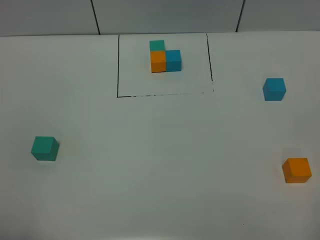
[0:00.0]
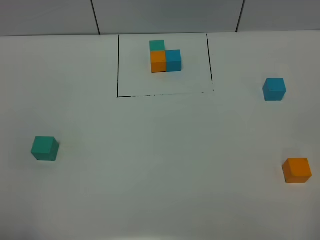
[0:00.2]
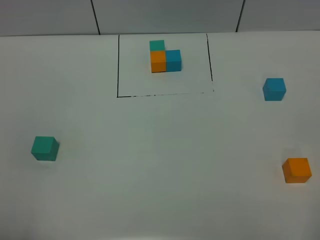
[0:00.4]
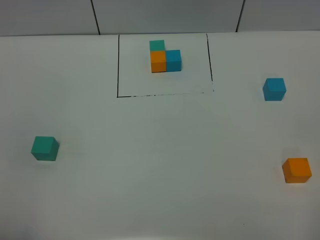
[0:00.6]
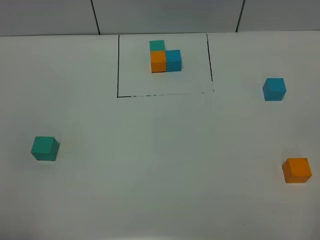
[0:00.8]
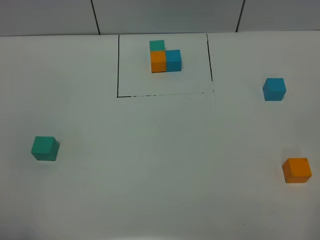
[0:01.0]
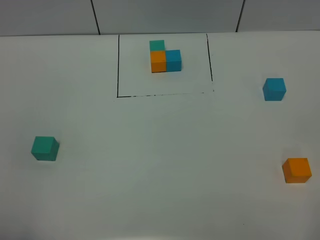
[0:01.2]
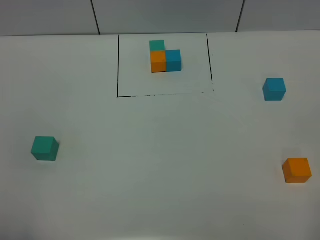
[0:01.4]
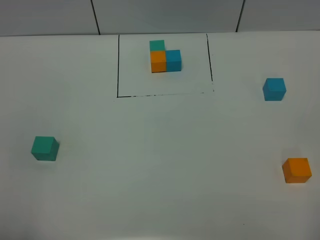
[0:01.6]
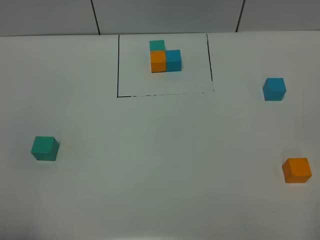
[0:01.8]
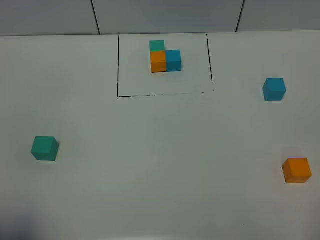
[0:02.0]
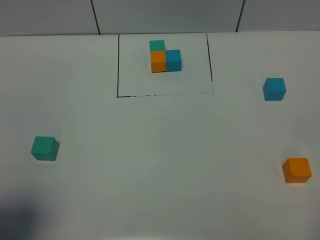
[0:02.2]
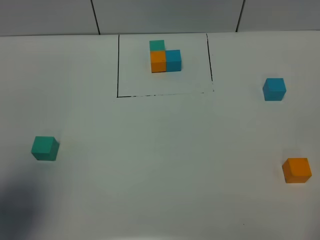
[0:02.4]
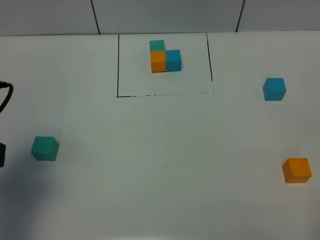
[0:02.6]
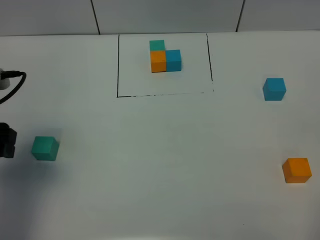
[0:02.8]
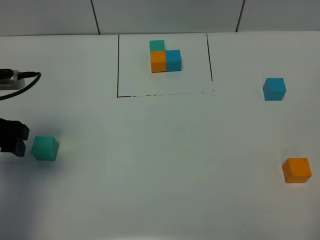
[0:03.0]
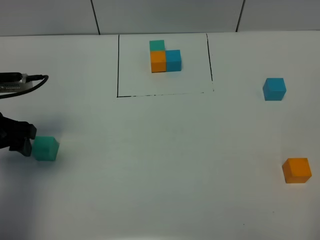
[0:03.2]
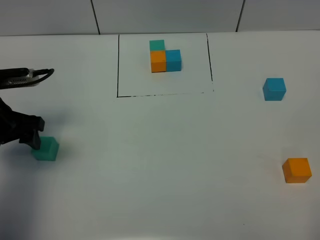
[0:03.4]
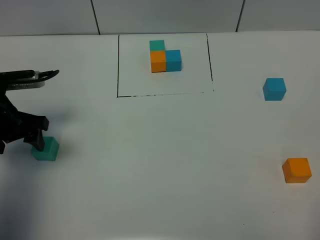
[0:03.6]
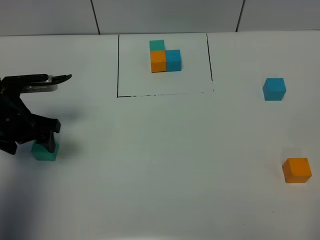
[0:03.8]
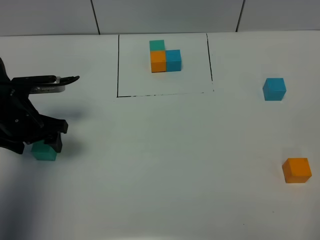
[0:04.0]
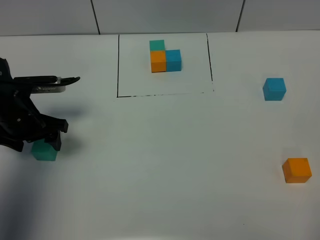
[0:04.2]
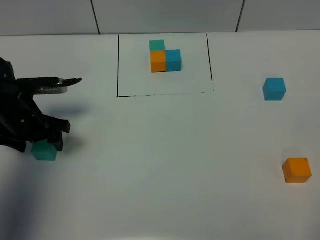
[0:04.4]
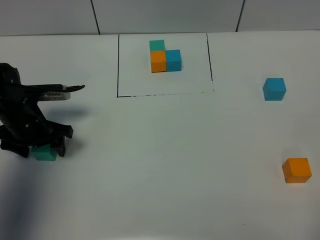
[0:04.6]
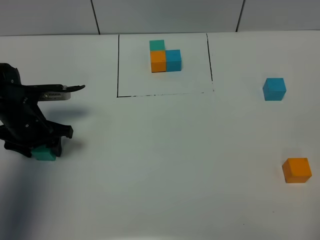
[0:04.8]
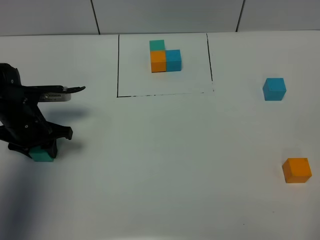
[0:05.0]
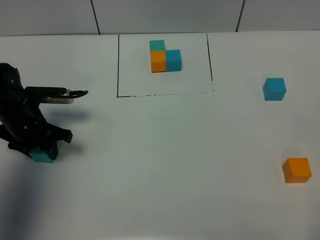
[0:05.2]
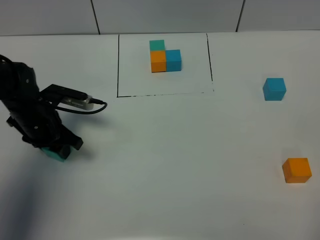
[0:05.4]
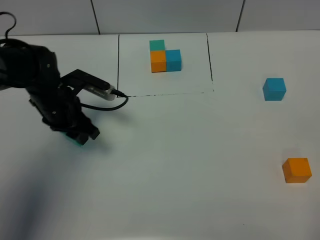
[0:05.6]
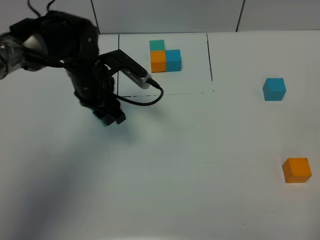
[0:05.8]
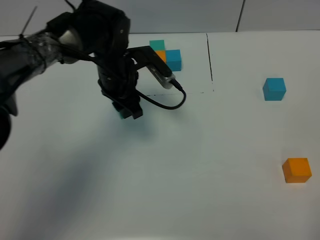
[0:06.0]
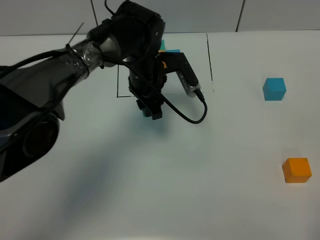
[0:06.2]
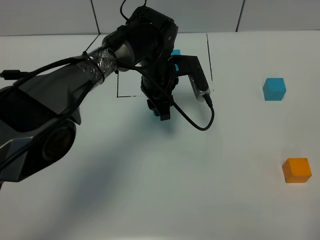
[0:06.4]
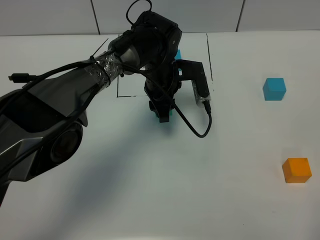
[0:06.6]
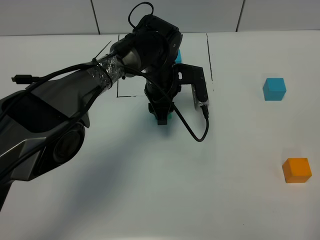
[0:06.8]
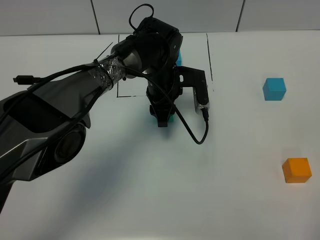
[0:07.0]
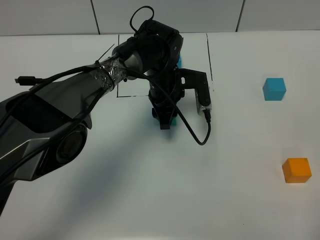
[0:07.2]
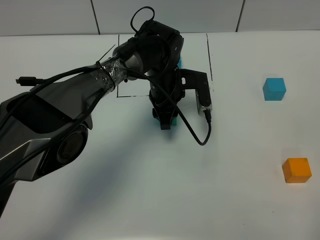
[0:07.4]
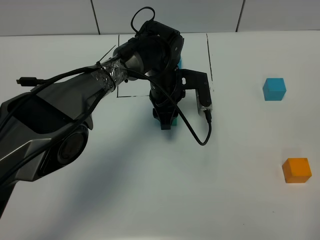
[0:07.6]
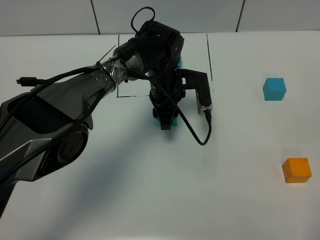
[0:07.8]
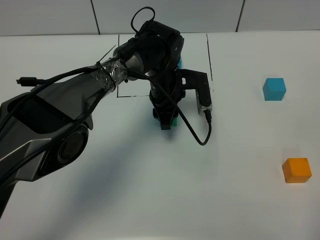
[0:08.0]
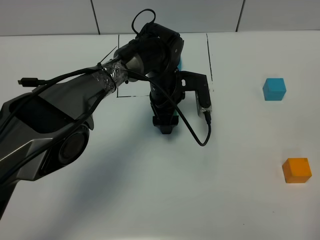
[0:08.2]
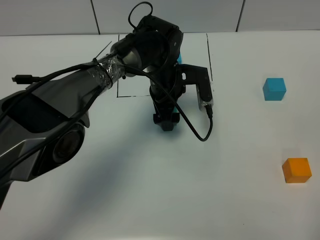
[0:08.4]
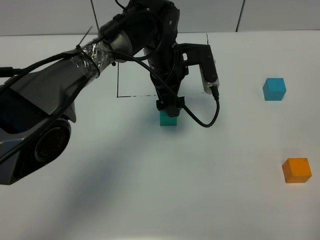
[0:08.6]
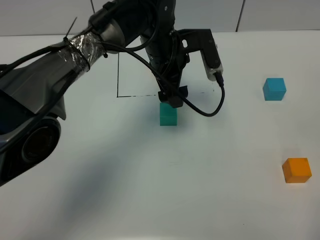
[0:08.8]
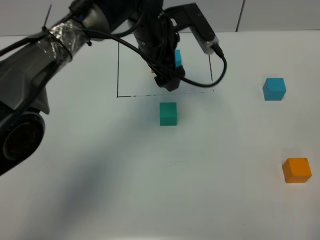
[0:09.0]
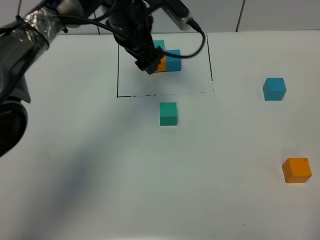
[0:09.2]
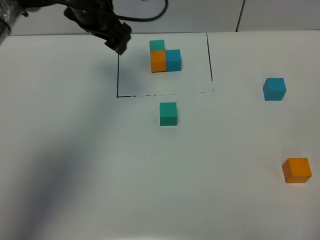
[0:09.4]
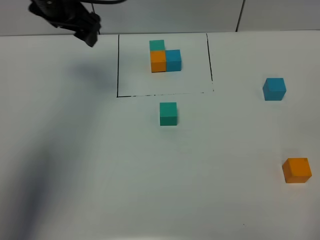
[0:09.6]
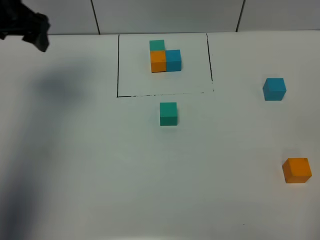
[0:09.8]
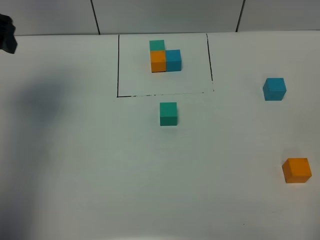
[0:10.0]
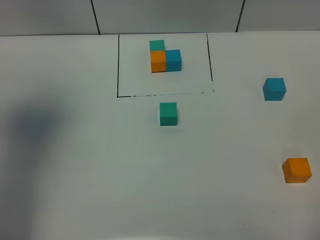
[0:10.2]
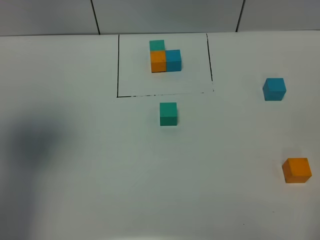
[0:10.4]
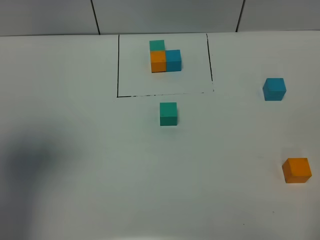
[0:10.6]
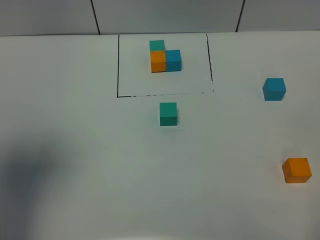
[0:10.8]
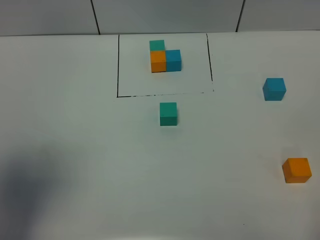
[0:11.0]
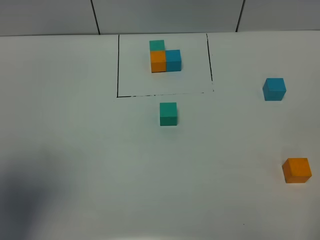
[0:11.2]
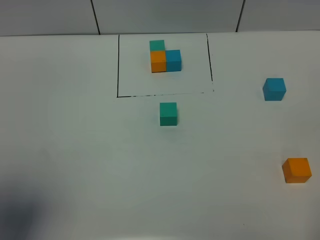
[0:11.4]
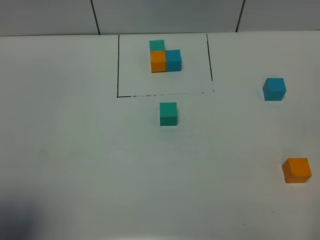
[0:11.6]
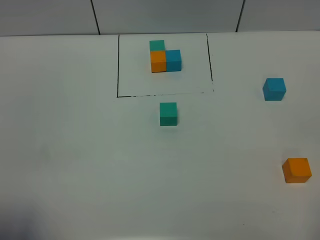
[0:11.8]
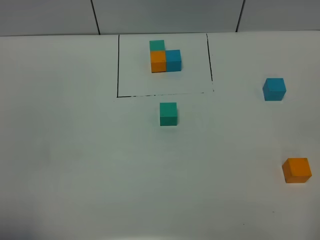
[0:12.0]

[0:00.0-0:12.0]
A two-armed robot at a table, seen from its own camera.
Task of the whole recording: According to the building block template in front, assemble the scattered blocks together.
Step, 0:00.0 to 0:08.0: Put the green build block in the center of the table.
0:00.0 to 0:01.6: Neither gripper changes place.
0:01.6 to 0:03.0: The left gripper is displaced forward by approximately 25 cm.
0:03.0 to 0:04.4: The left gripper goes approximately 10 cm downward and forward.
0:04.4 to 0:06.0: The left gripper moves to the right, some 20 cm, and closes.
0:06.0 to 0:07.6: The left gripper shifts some 10 cm to the right and downward.
0:07.6 to 0:09.0: The left gripper moves upward, roughly 15 cm, and opens.
0:09.0 to 0:10.4: The left gripper travels to the left, backward and upward by some 35 cm.
0:10.4 to 0:12.0: The left gripper moves backward, some 20 cm.

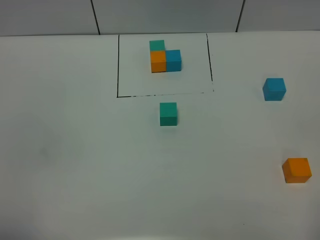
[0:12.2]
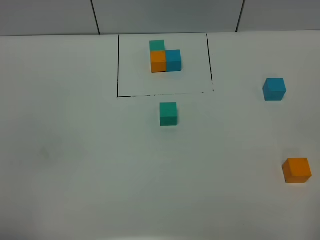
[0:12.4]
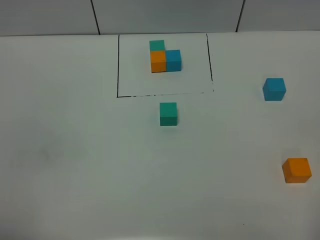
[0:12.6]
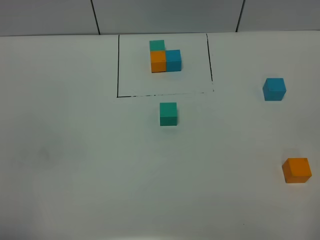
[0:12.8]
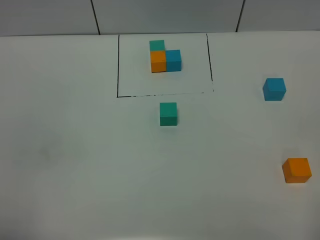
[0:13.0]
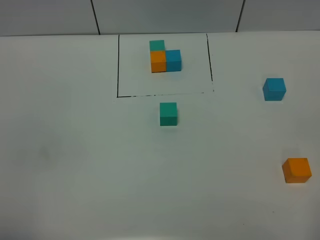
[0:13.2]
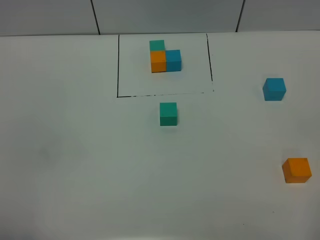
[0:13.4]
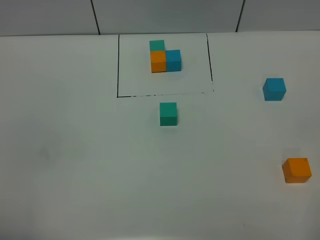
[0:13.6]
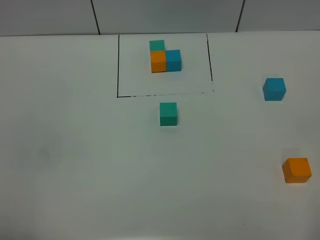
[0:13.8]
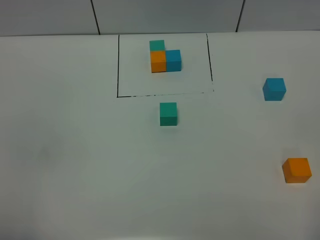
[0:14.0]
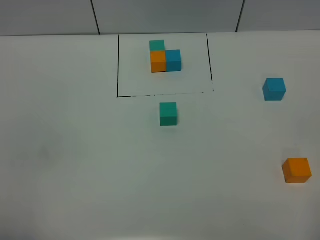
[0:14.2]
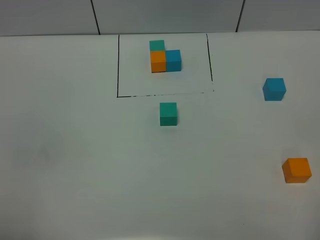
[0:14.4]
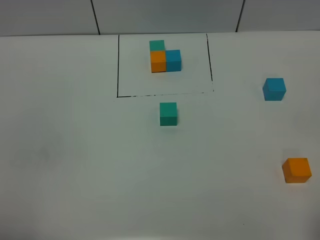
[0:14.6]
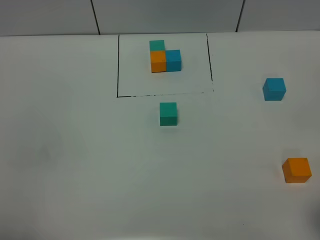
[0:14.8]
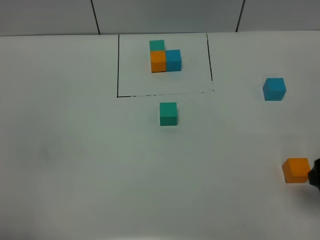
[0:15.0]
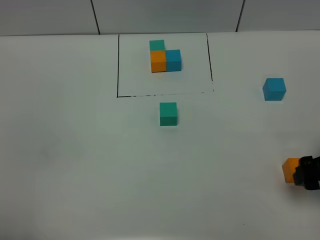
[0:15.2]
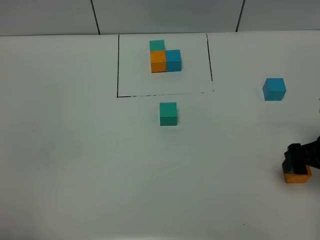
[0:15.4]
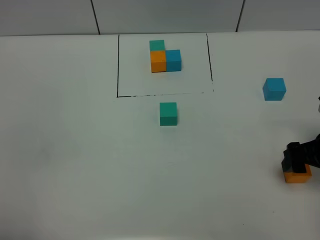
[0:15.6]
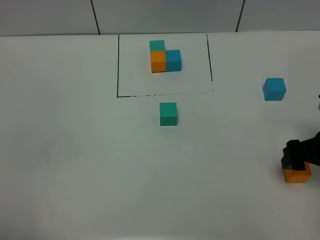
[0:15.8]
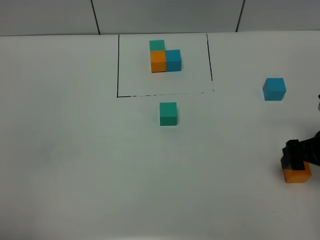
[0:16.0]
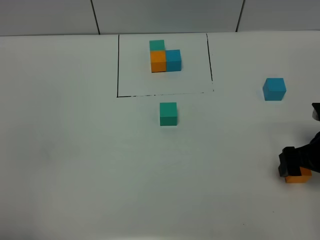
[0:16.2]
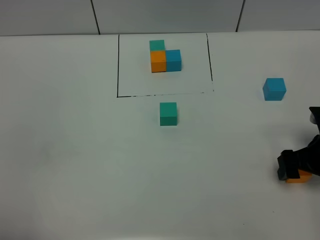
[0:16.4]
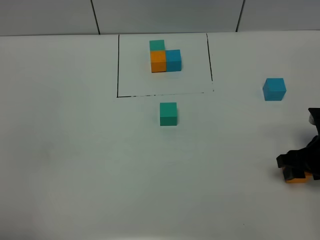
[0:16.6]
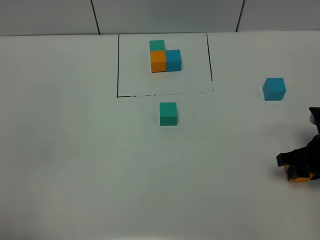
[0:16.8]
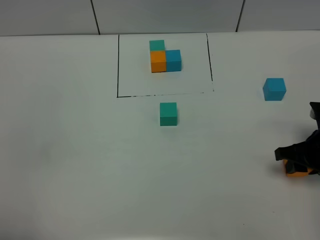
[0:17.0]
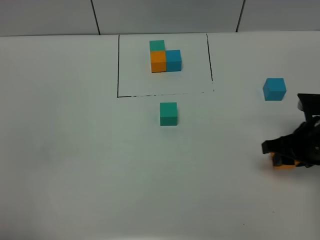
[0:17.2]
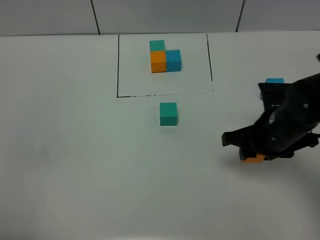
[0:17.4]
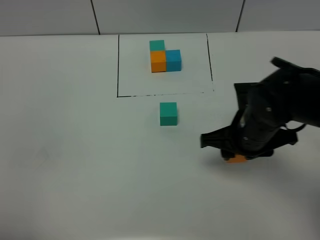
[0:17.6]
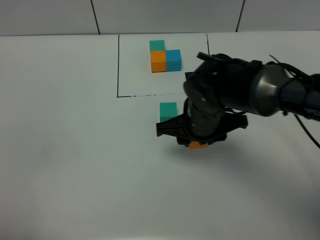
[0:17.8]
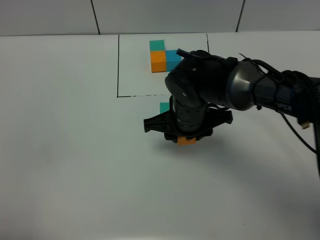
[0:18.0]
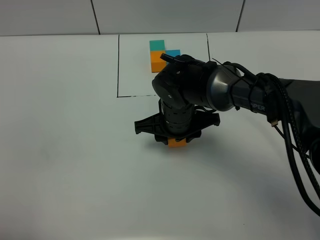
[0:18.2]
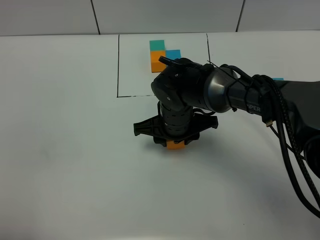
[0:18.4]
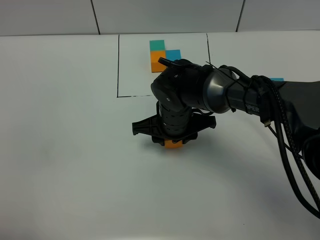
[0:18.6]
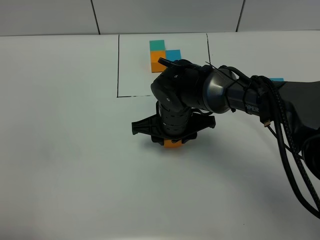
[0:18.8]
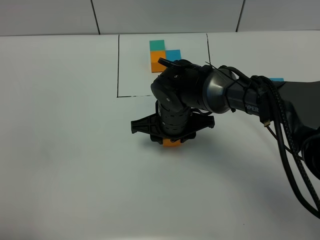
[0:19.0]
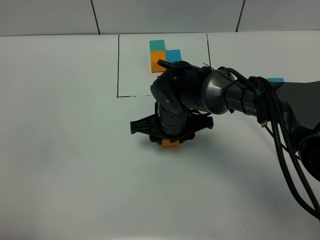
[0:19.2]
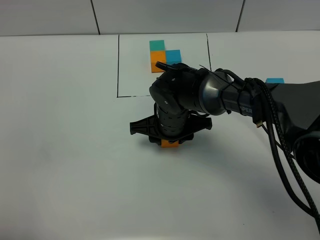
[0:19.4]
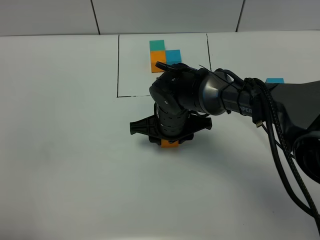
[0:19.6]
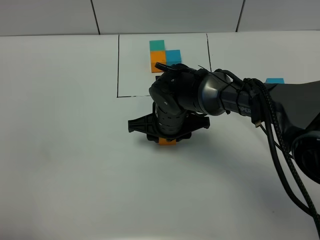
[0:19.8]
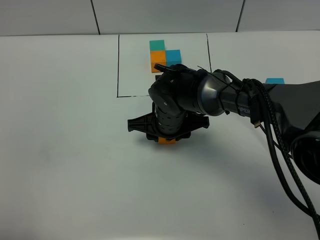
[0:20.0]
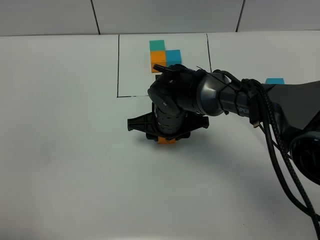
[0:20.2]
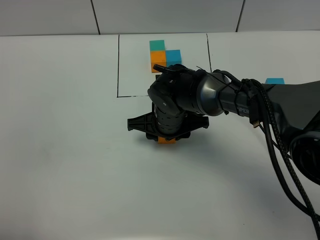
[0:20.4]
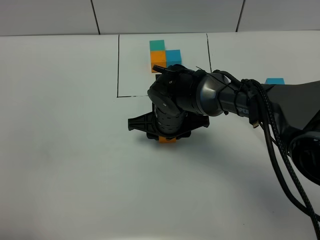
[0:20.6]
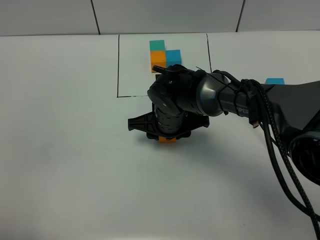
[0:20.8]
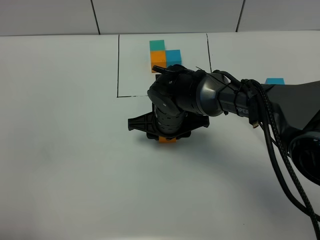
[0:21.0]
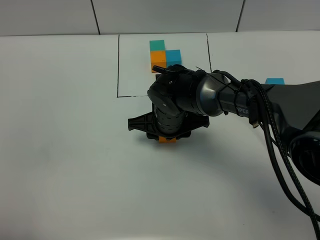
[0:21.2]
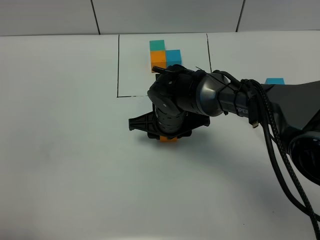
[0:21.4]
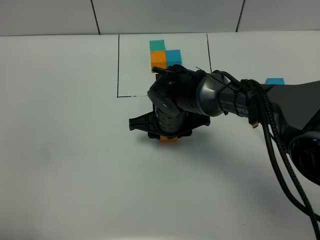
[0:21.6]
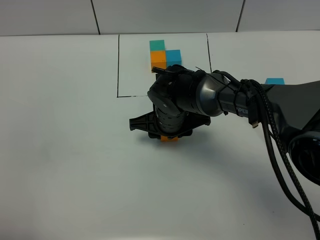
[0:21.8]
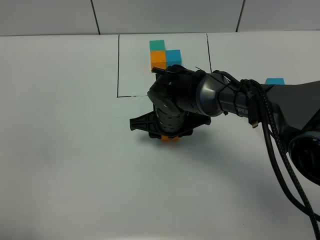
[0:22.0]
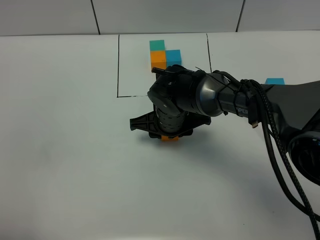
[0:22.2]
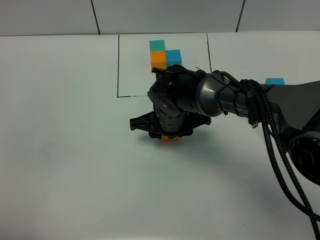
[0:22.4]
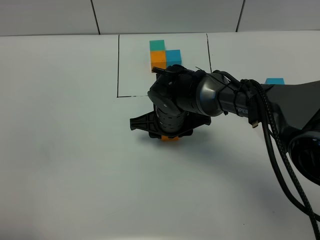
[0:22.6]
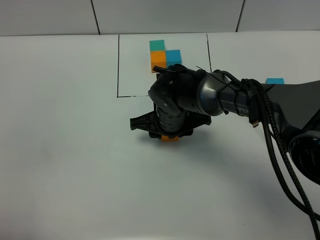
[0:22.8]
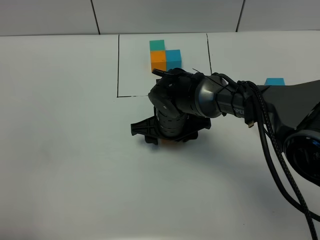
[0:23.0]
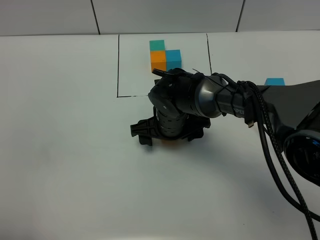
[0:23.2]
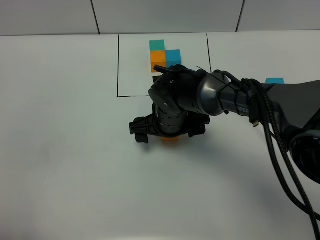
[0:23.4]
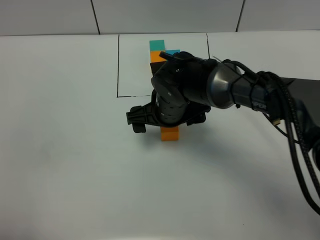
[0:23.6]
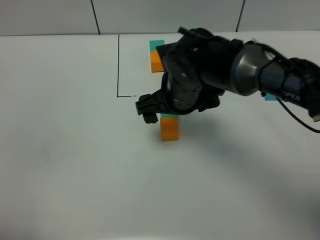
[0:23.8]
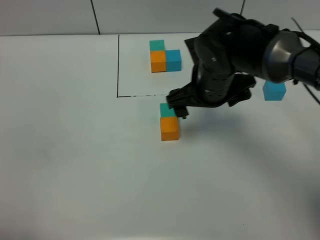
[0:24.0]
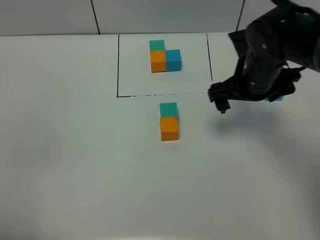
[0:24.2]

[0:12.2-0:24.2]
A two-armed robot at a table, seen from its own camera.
Task of the whole recording: According to the building block template in front, assemble the scattered blocks together.
Step, 0:12.2 to 0:23.4: Put the ornage build block on the behind of the green build block.
0:12.2 to 0:13.8: Both grippers stay put.
0:13.8 to 0:15.2: The right gripper heads forward and downward, covering about 20 cm.
0:15.2 to 0:16.6: The right gripper shifts about 5 cm downward, and closes.
0:16.6 to 0:18.2: The right gripper is displaced to the left by approximately 30 cm.
0:18.2 to 0:19.8: The grippers stay close to where they were, moving slightly.
0:19.8 to 0:22.6: Neither gripper changes place.
0:22.6 to 0:24.2: The right gripper moves to the right and upward, about 20 cm, and opens.
